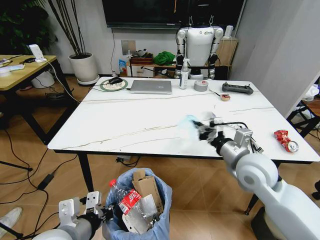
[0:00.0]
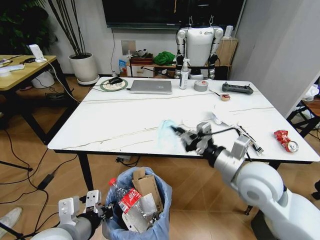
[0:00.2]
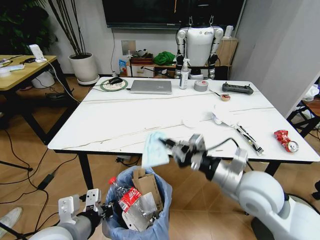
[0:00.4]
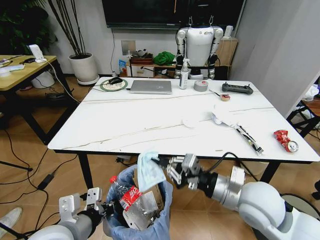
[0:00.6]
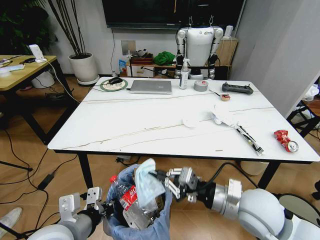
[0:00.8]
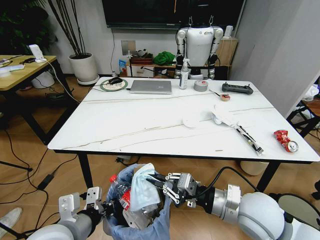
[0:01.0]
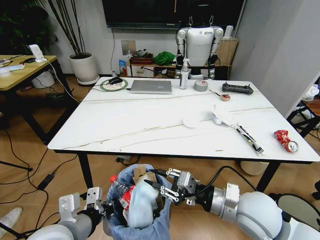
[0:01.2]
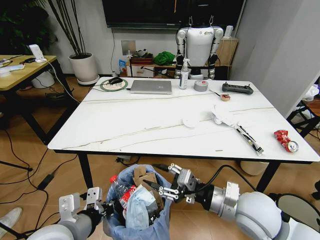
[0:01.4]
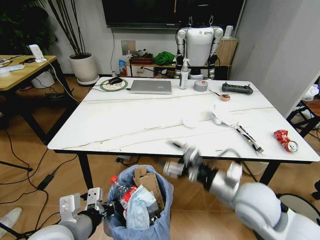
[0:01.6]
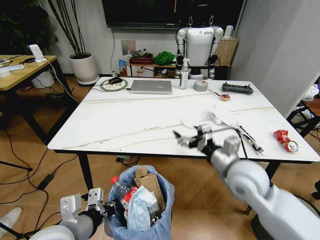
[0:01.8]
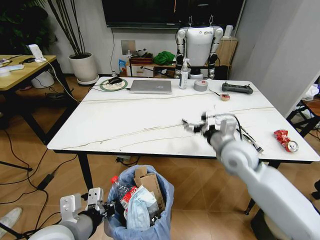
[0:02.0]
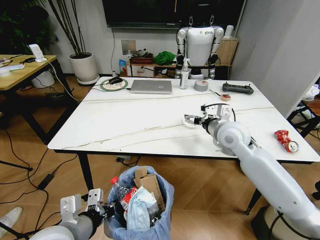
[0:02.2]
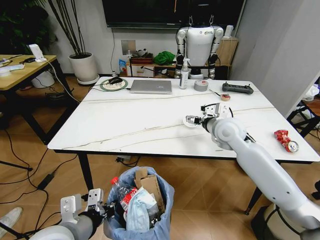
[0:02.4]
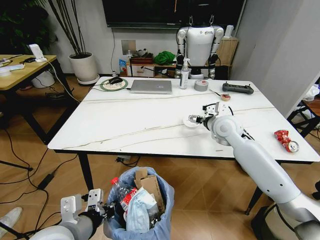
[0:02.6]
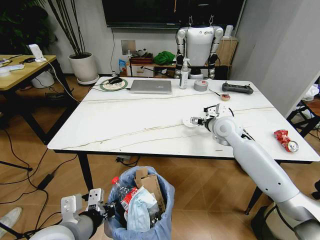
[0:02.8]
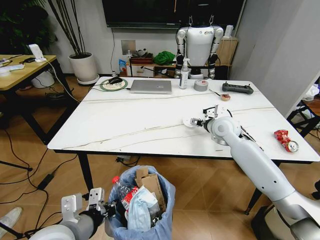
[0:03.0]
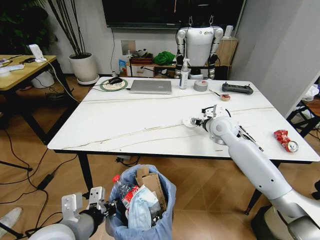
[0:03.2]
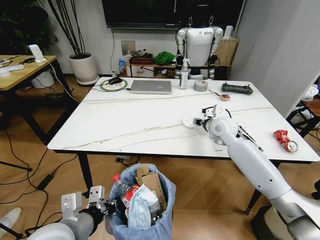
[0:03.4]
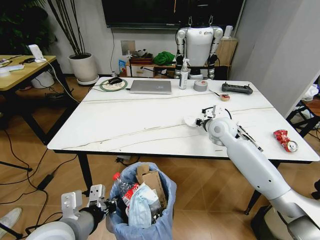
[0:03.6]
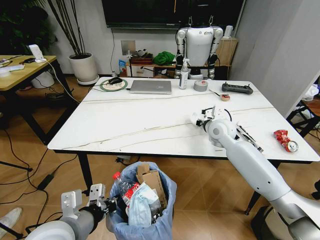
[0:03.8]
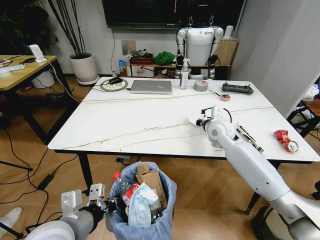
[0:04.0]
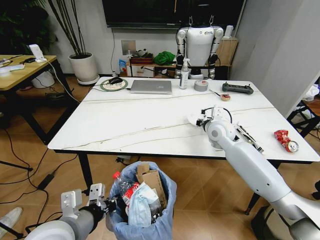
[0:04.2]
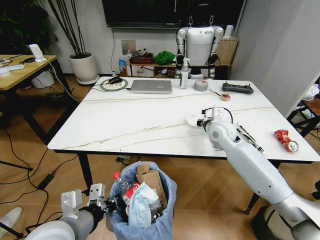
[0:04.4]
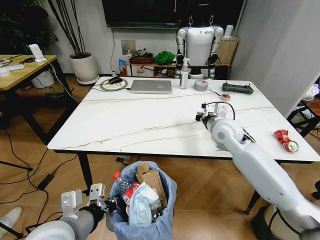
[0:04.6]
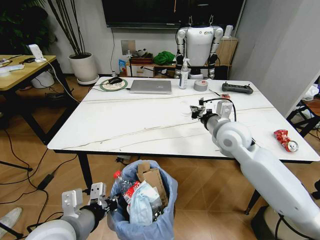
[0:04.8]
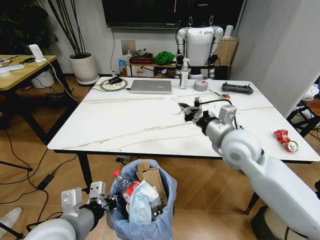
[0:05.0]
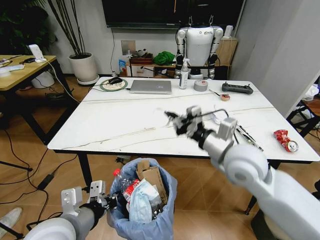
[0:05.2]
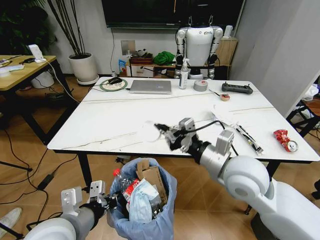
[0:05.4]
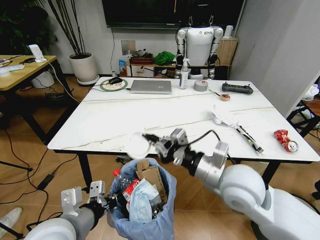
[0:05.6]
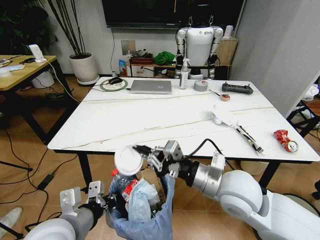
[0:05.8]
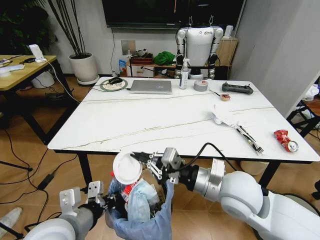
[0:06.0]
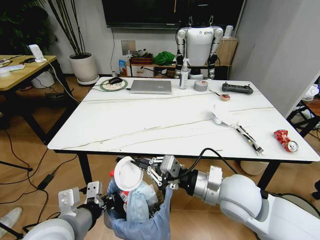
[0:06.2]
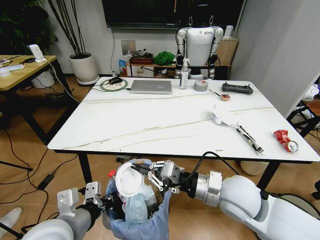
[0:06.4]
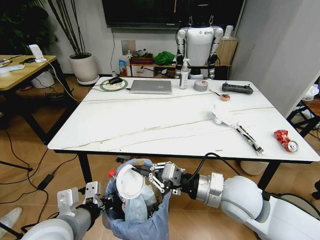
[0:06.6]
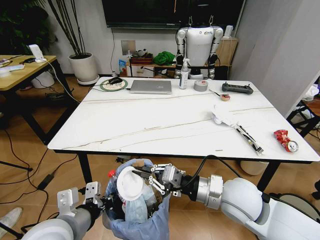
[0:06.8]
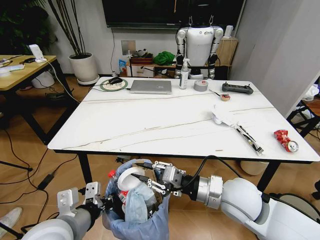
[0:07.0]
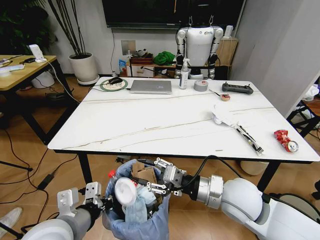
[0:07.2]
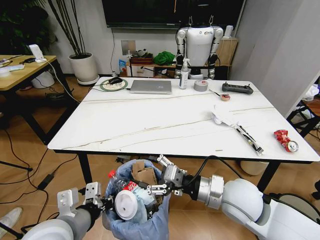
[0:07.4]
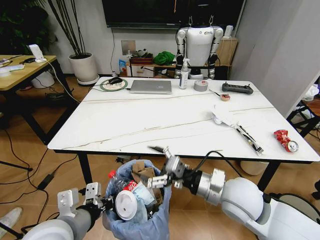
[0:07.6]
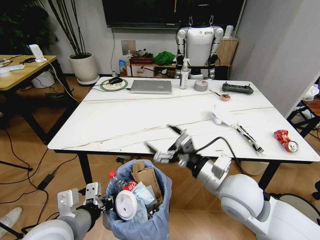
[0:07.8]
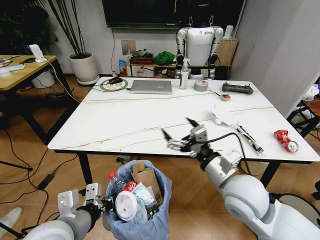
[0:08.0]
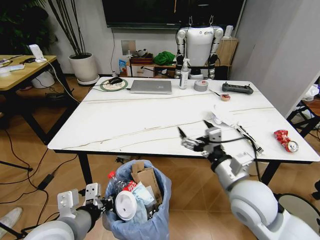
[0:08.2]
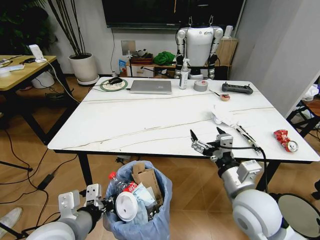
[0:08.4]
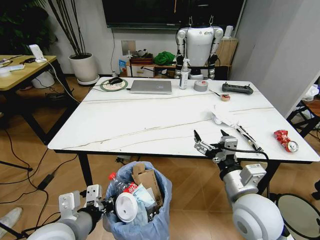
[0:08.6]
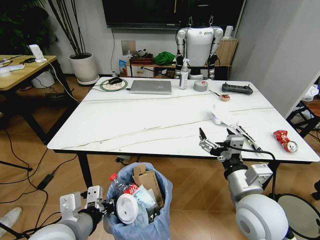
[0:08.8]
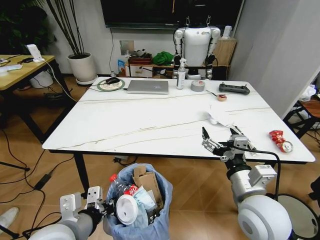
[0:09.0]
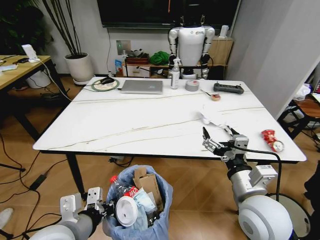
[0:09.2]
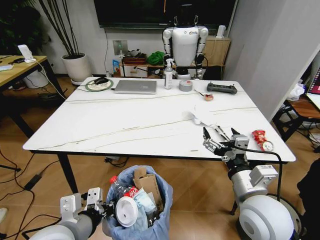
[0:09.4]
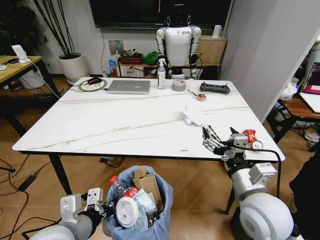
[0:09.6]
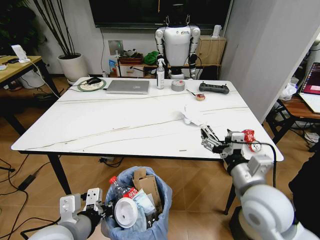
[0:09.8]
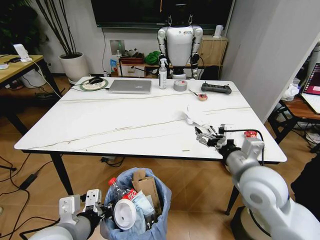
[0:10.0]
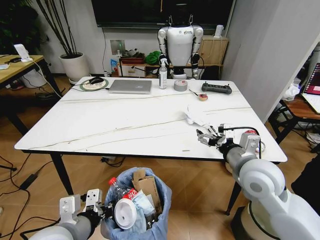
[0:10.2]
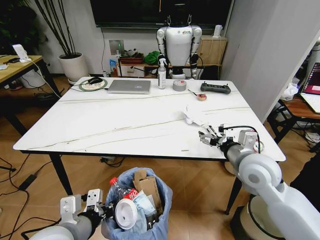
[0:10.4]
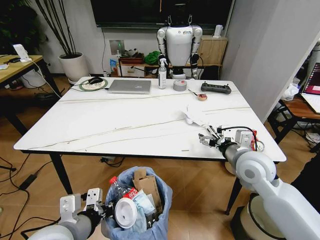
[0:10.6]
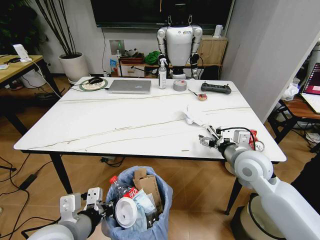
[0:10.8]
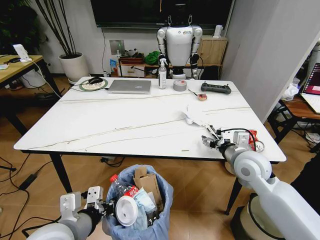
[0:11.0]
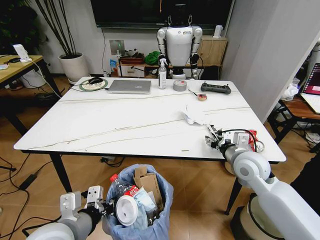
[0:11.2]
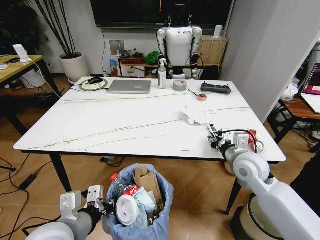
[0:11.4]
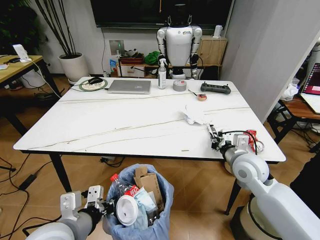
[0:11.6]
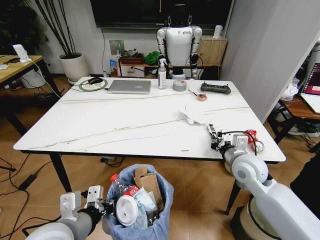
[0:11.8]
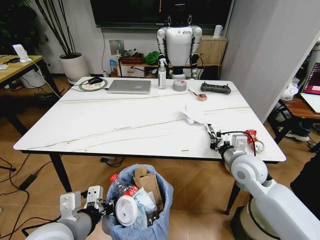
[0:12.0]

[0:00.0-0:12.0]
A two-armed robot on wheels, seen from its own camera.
Task of the whole recording: Pick up the trash bin and place the trash from the table into it.
0:00.0 to 0:01.6: The right gripper shifts roughly 5 cm backward, and opens its fingers.
0:01.6 to 0:03.0: The right gripper heads forward, covering roughly 25 cm.
0:03.0 to 0:04.4: The right gripper closes.
0:04.4 to 0:06.0: The right gripper moves backward, about 25 cm.
0:06.0 to 0:07.6: The right gripper opens its fingers.
0:07.6 to 0:09.0: The right gripper moves some 5 cm.
0:09.0 to 0:10.4: The right gripper moves forward, some 10 cm.
0:10.4 to 0:12.0: The right gripper shifts about 5 cm downward, and closes up.

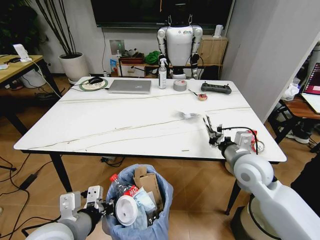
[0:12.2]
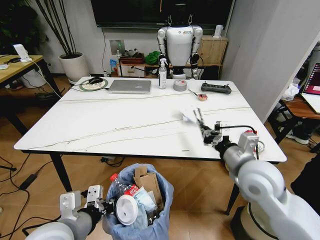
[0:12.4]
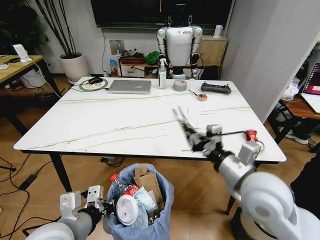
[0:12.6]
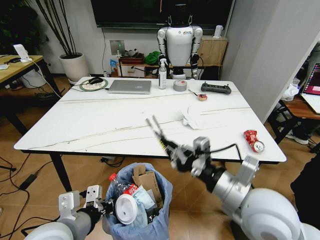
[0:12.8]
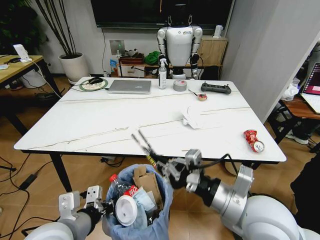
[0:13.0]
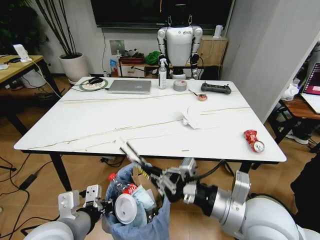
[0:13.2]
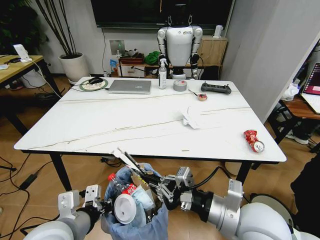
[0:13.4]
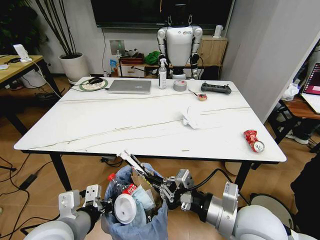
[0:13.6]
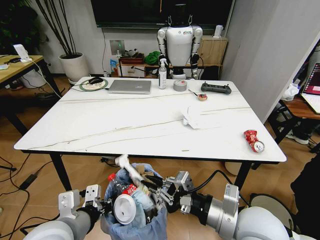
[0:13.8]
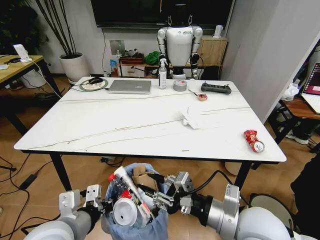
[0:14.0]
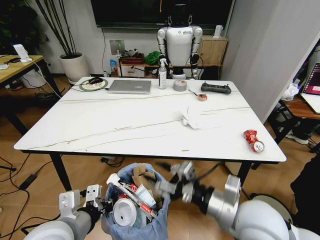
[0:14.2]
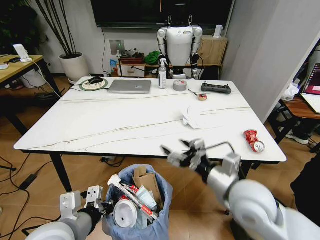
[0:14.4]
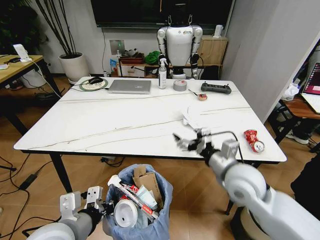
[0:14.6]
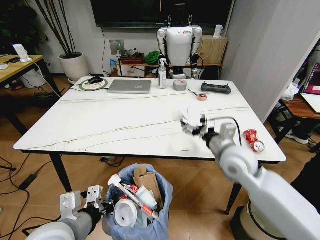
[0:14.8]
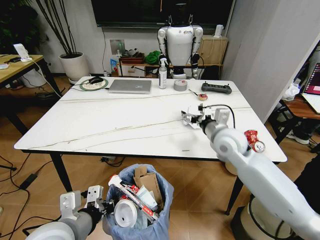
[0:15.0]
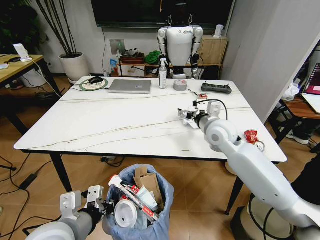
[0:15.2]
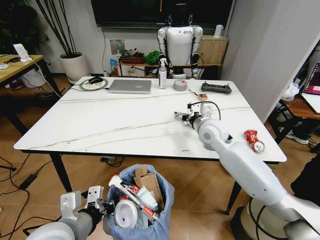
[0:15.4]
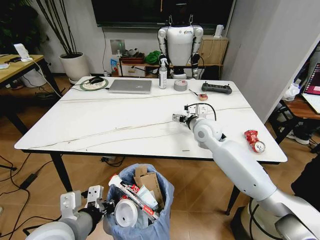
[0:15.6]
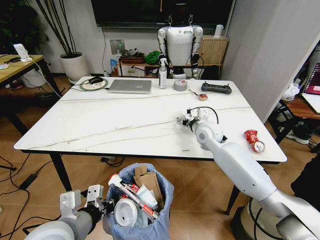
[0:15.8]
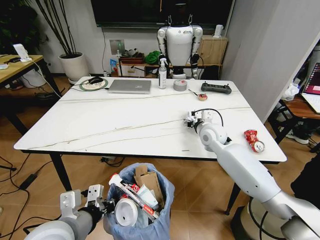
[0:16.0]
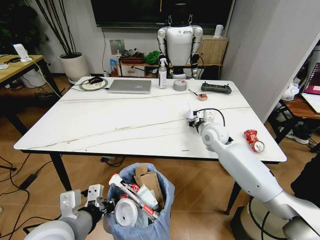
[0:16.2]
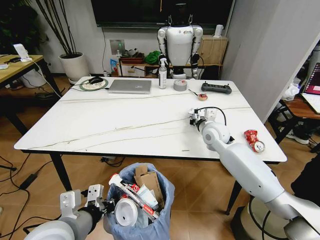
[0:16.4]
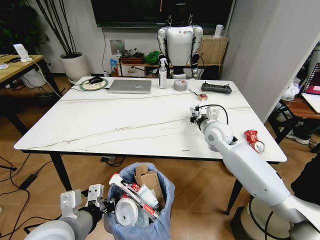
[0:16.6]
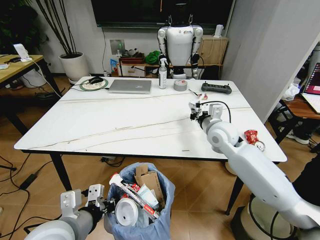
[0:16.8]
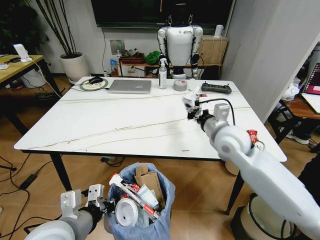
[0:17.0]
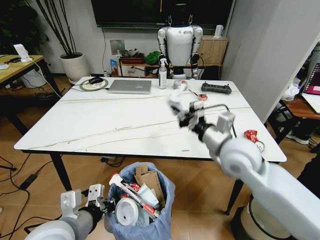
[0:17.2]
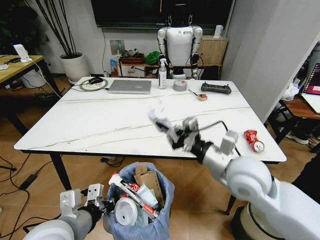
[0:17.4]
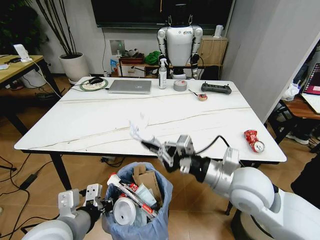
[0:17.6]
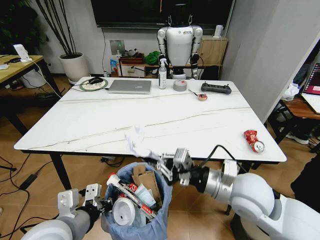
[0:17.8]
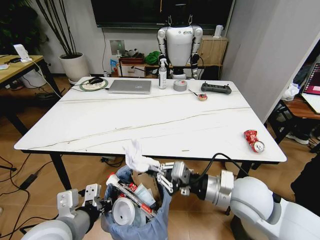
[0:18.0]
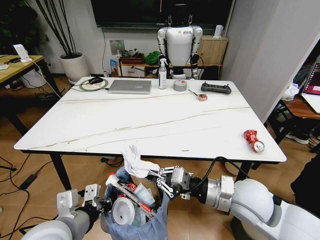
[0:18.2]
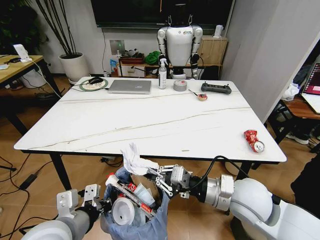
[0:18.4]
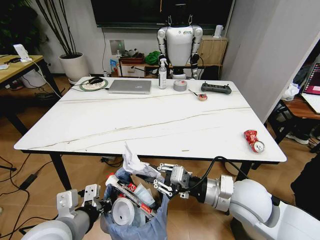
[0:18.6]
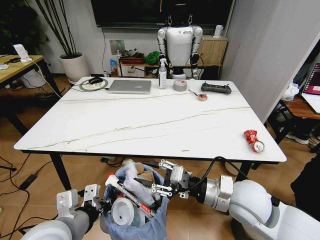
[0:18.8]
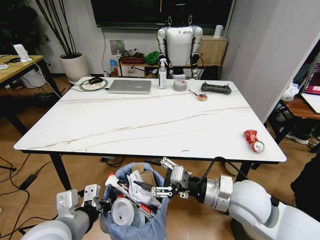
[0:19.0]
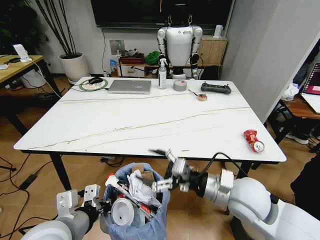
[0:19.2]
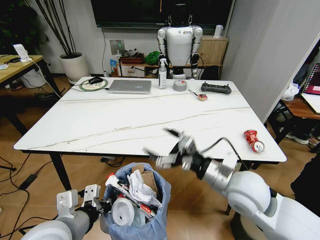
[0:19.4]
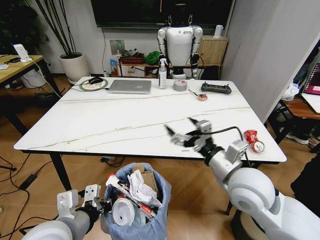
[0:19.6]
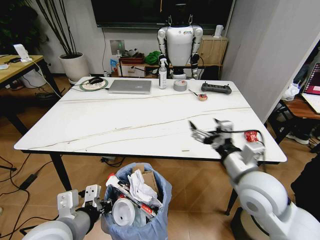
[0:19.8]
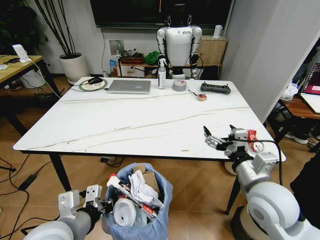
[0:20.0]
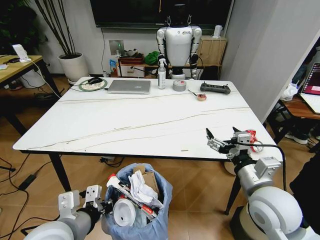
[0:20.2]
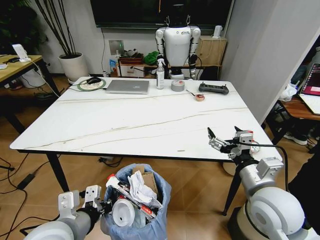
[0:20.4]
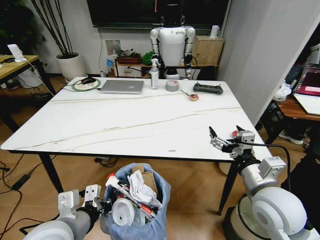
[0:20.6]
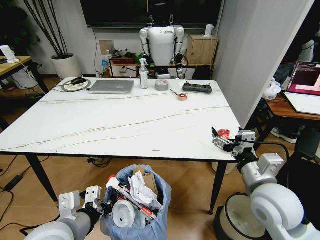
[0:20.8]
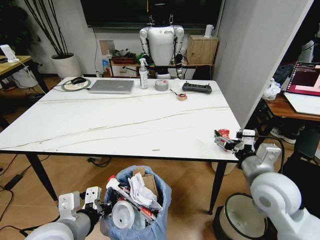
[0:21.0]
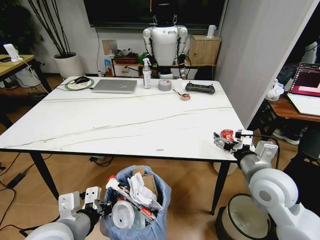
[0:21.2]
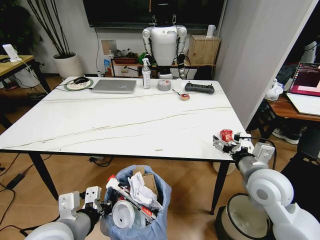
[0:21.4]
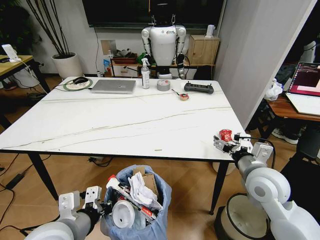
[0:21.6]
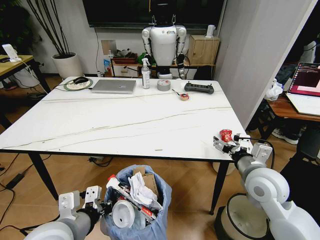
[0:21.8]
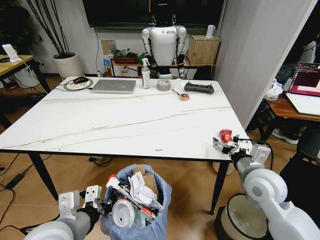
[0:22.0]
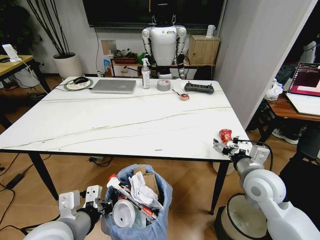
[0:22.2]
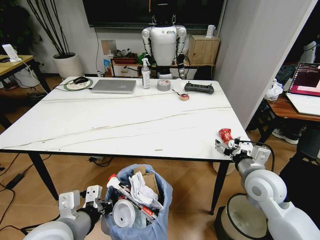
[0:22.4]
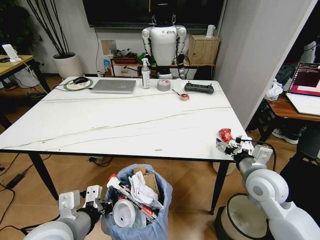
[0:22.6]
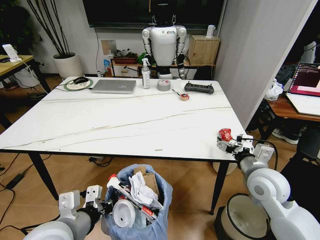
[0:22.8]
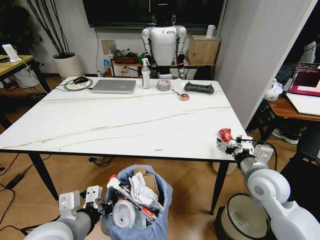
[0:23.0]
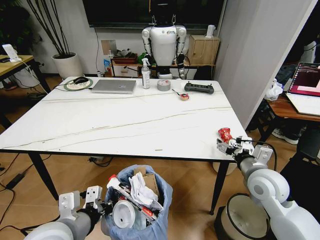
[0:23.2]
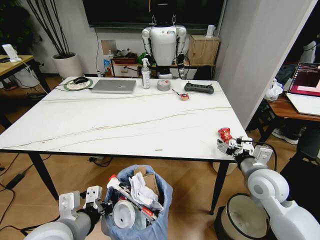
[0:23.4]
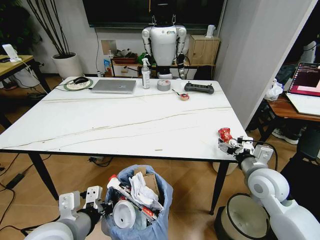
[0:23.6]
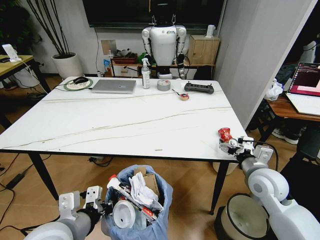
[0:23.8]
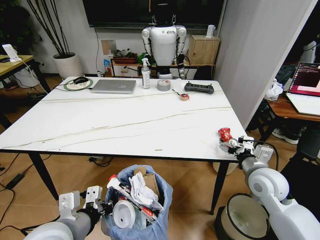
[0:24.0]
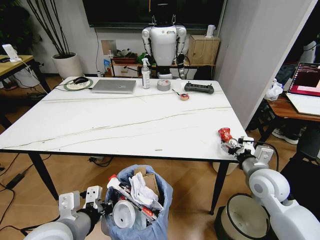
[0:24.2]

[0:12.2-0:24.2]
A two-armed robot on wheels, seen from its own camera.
Task of the whole recording: Pick up the trash bin and place the trash from the table into it.
0:12.2 to 0:13.8: The right gripper moves backward and to the left, about 15 cm.
0:13.8 to 0:15.2: The right gripper is displaced forward by about 25 cm, and opens.
0:15.2 to 0:16.6: The right gripper ends up approximately 5 cm from where it was, and closes.
0:16.6 to 0:18.2: The right gripper goes approximately 25 cm backward.
0:18.2 to 0:19.8: The right gripper opens.
0:19.8 to 0:21.2: The right gripper ends up approximately 5 cm from where it was.
0:21.2 to 0:22.6: The grippers move only a little.
0:22.6 to 0:24.2: There are only small adjustments of the grippers.
